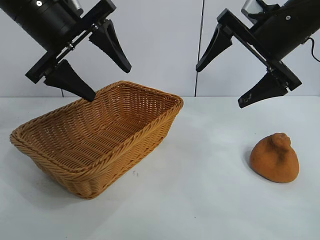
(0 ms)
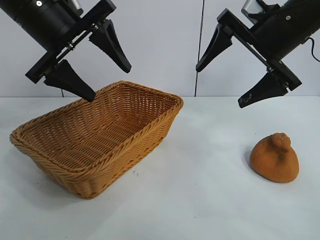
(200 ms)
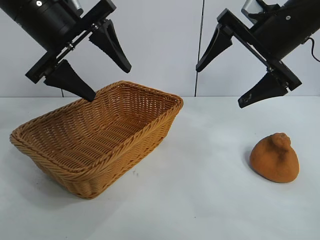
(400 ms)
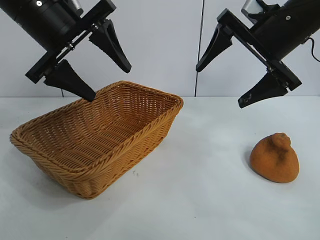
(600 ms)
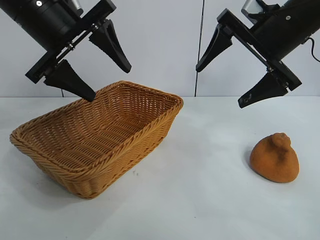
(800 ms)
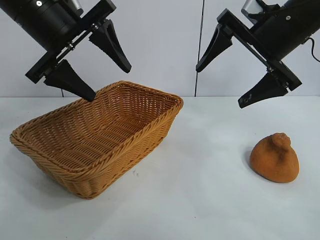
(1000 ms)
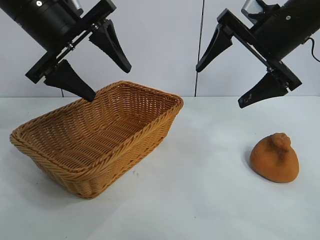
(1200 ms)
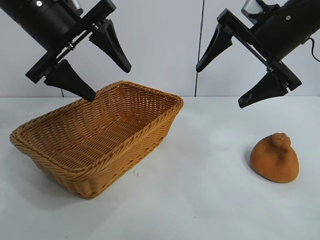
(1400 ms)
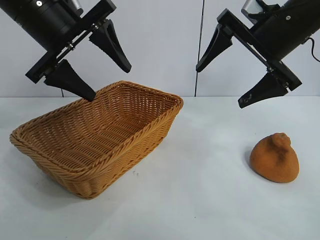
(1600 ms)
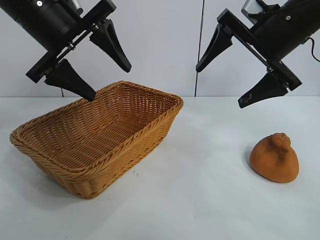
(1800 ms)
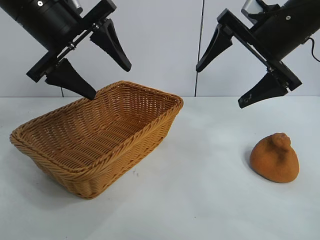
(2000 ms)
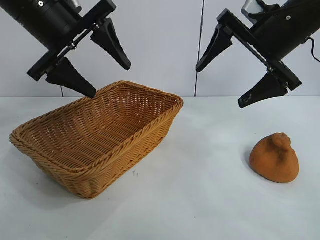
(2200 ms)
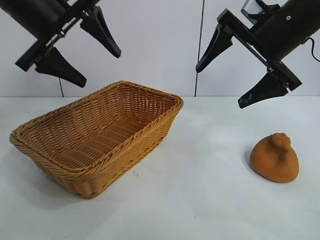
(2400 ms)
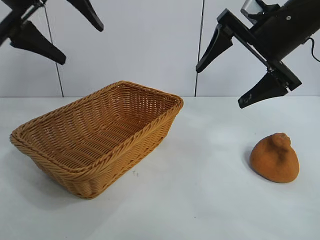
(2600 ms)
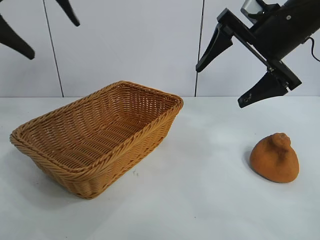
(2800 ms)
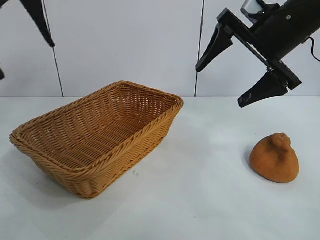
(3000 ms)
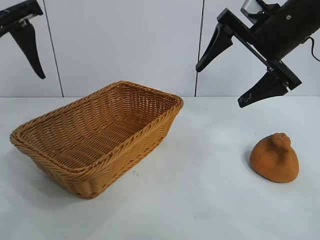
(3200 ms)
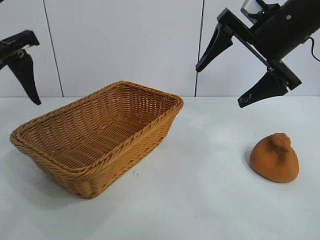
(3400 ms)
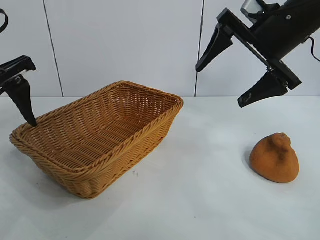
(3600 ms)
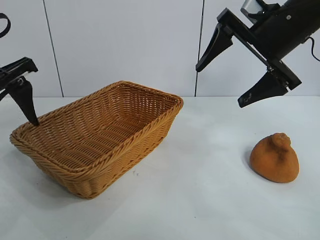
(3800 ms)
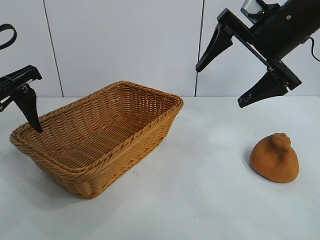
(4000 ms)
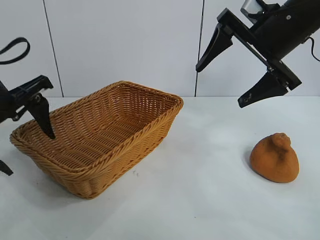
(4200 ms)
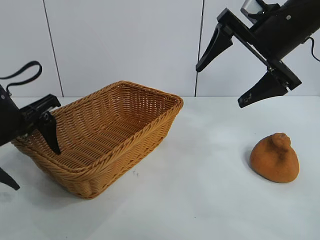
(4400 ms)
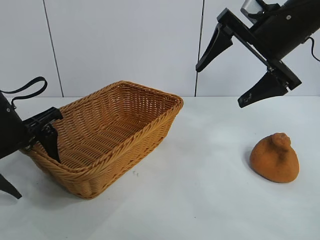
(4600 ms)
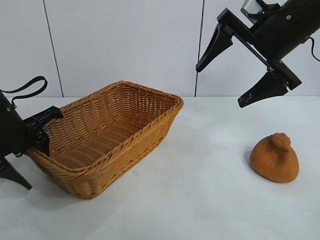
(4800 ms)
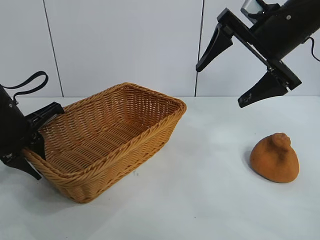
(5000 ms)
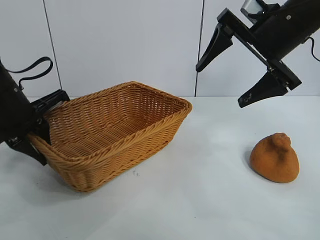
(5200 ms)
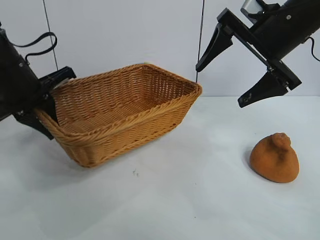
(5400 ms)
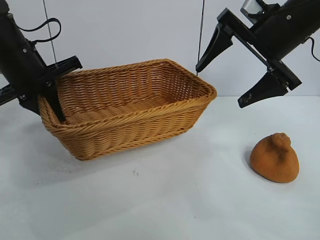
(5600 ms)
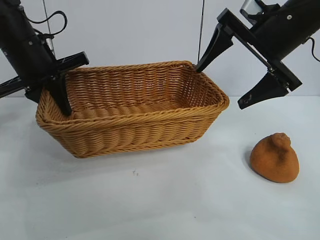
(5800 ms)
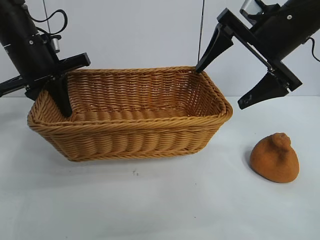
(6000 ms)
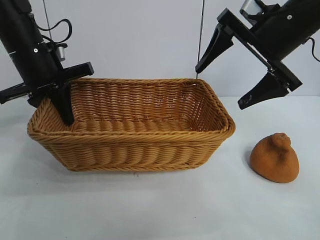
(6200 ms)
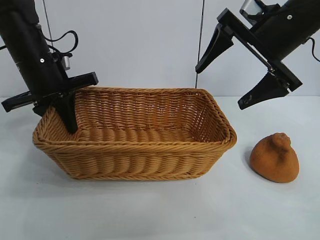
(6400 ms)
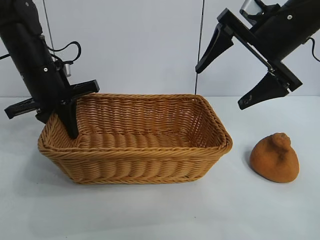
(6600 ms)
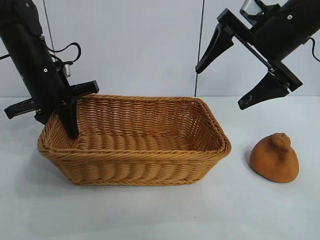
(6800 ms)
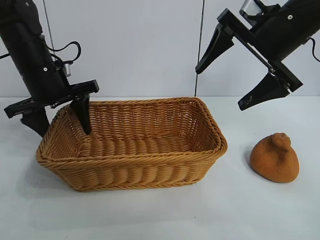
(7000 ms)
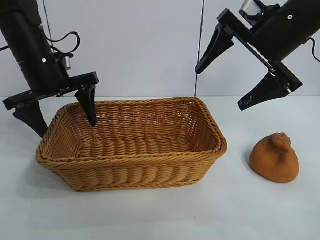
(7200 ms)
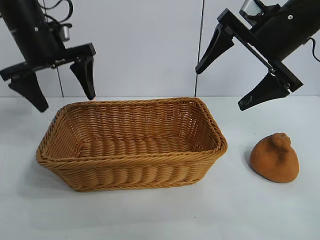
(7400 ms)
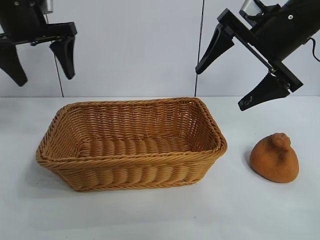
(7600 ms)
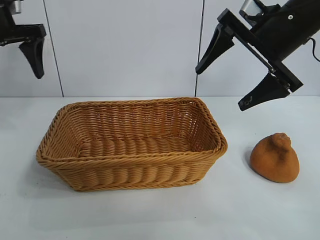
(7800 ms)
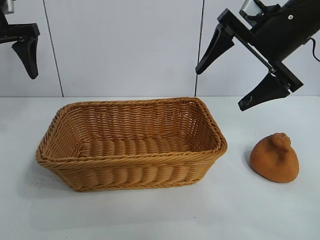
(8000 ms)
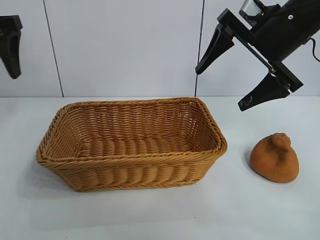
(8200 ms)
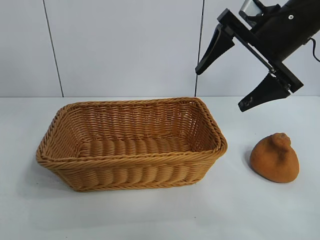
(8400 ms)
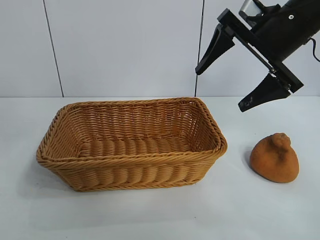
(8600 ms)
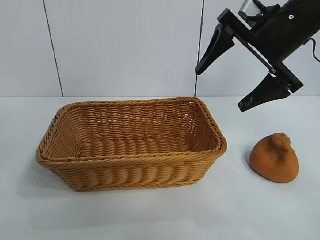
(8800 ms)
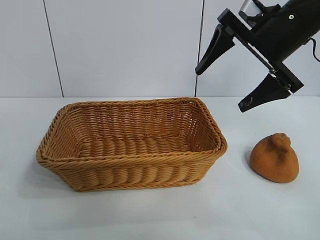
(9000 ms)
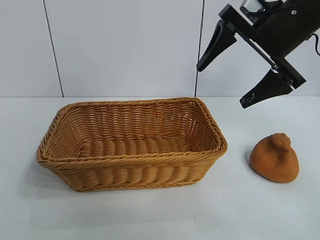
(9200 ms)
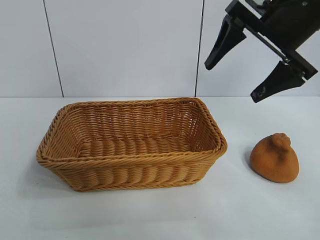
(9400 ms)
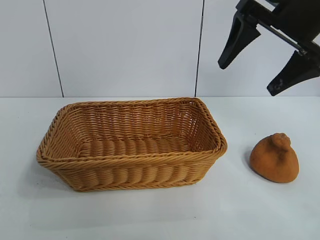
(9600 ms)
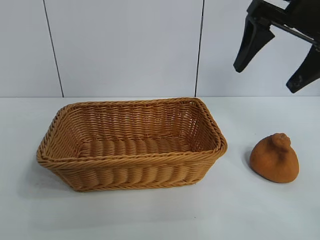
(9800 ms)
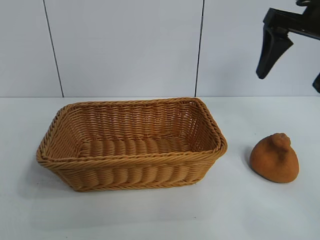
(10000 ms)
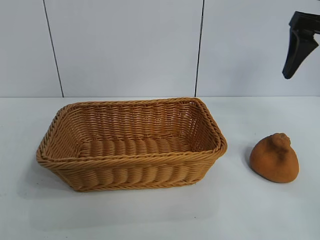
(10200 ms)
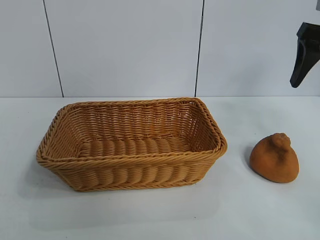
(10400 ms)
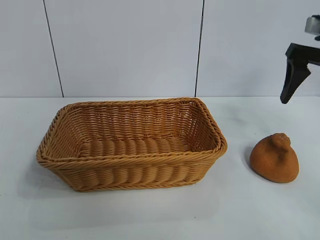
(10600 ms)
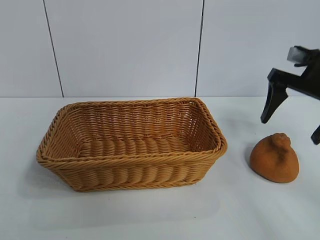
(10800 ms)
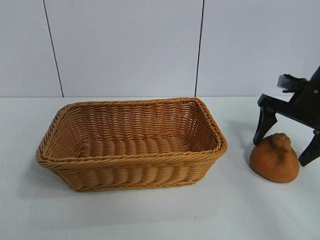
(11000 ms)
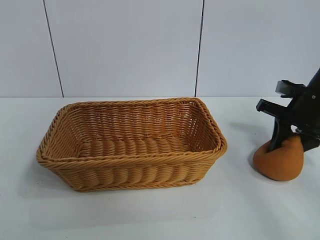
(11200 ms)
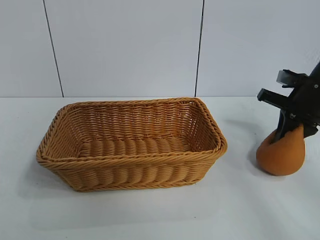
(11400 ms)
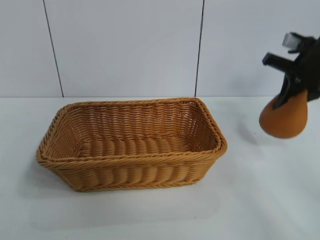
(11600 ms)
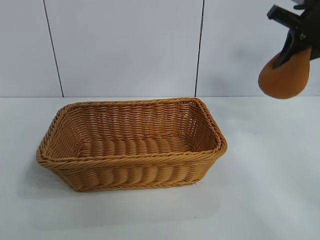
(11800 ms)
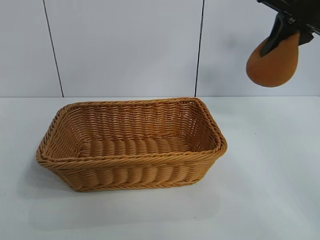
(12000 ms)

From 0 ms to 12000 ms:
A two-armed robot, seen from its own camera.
Task of the whole recording: pick up the orange and put it into the basket.
Step, from 1000 ms to 5000 ms: Grasp the basket with left gripper.
Step, from 5200 ms to 7000 ms: Place the basket in the center of view with left gripper.
Step, from 7200 ms to 11200 ms: Grasp the orange with right gripper.

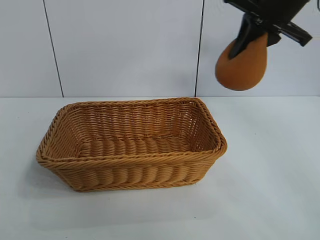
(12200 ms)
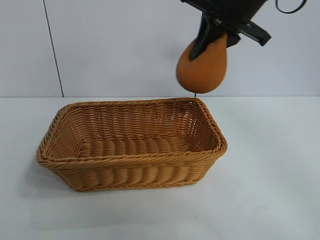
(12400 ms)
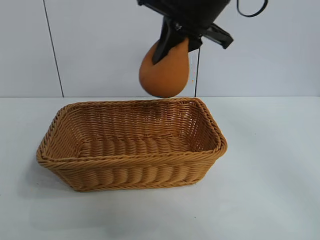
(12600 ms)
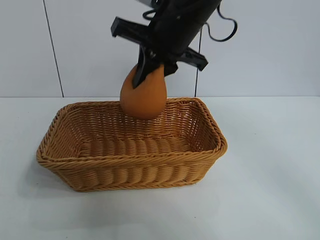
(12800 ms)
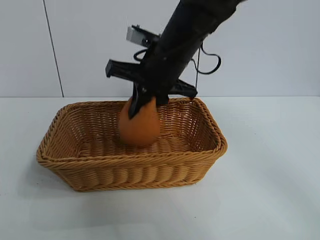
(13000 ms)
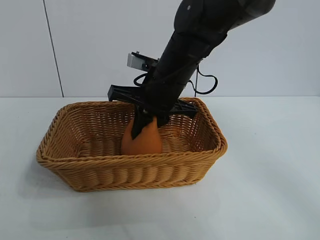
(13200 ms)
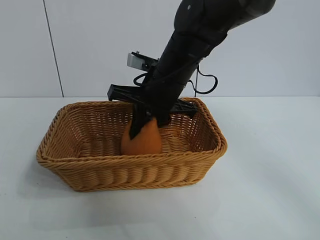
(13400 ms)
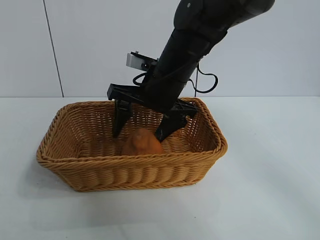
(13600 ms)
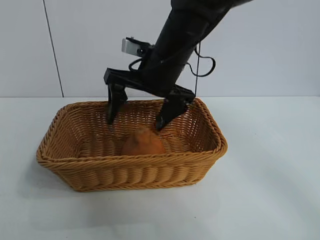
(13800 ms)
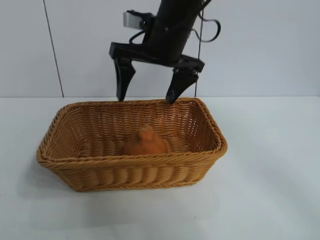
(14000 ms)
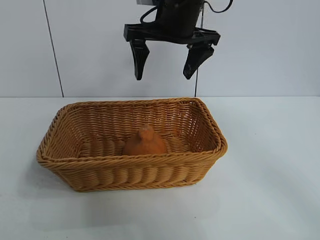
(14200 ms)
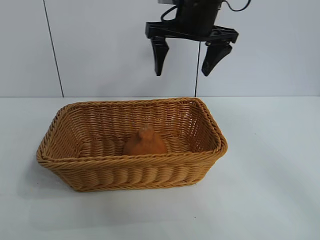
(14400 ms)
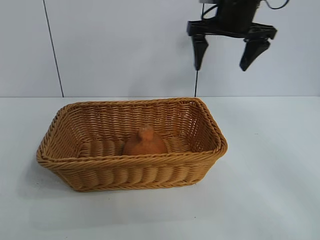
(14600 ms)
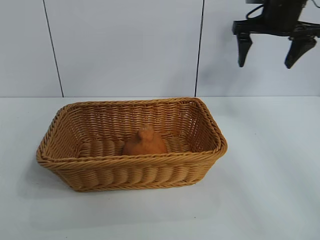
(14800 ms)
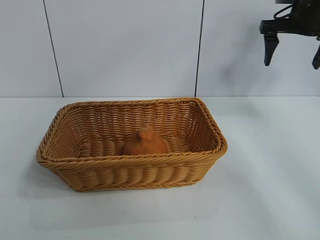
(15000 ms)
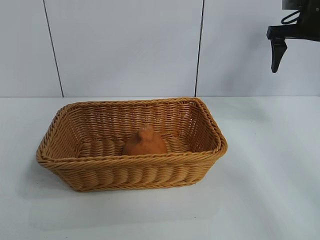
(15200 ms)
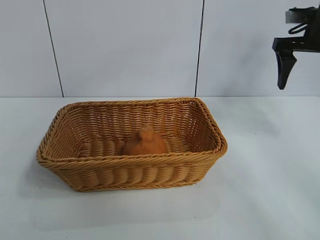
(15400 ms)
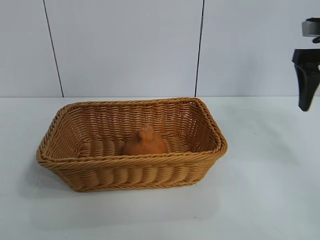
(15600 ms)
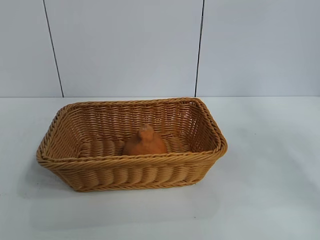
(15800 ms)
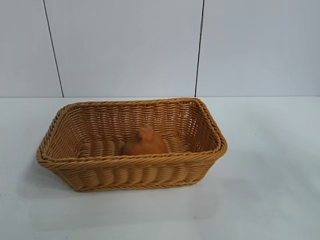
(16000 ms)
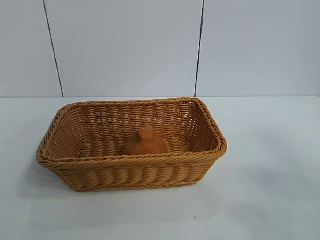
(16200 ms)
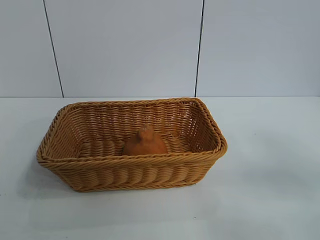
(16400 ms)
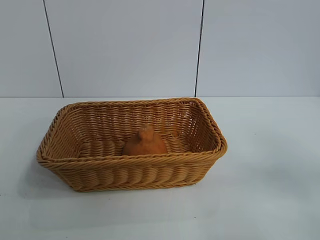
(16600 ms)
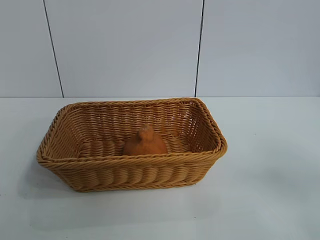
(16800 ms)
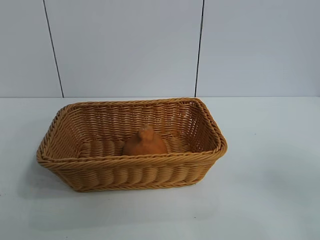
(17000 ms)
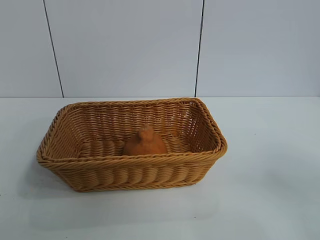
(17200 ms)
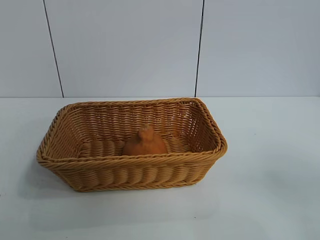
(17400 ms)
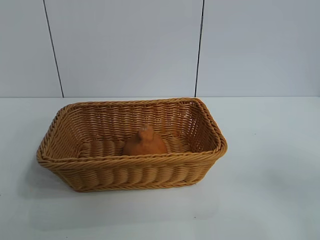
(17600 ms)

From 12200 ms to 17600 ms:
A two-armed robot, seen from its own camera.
Task of the whole recording: pick up the orange and put it into the basket.
Step, from 12200 ms to 13800 ms: Place the orange in the basket with right gripper.
